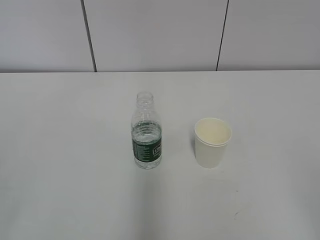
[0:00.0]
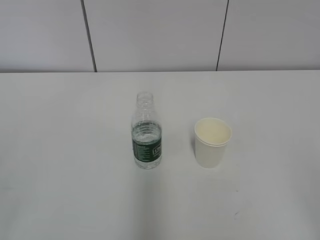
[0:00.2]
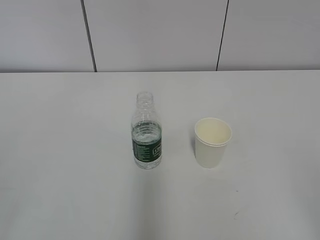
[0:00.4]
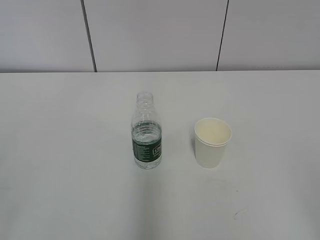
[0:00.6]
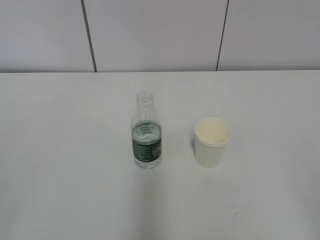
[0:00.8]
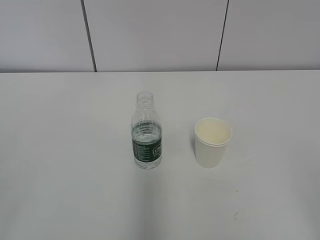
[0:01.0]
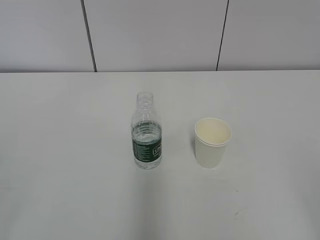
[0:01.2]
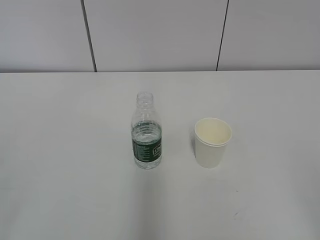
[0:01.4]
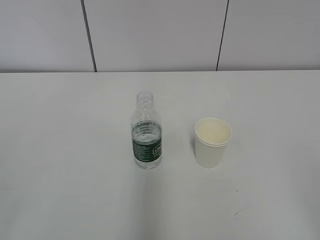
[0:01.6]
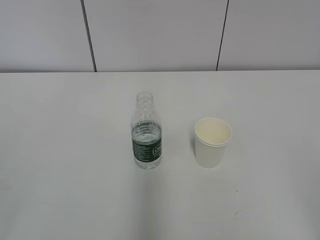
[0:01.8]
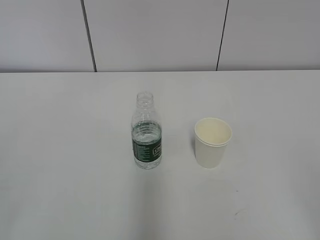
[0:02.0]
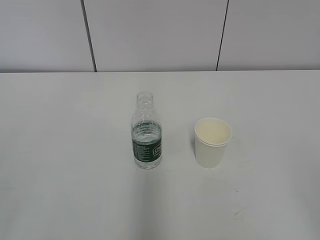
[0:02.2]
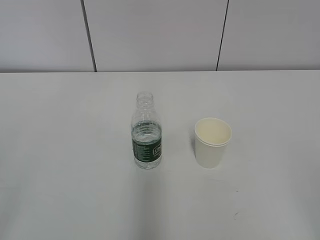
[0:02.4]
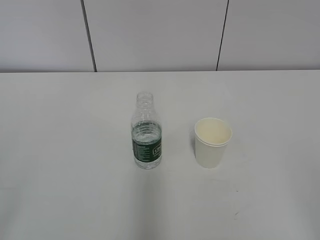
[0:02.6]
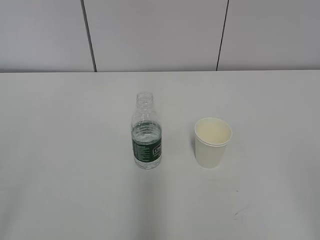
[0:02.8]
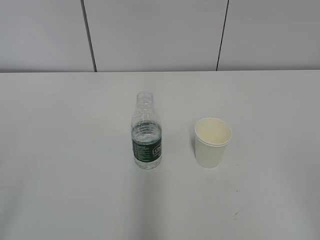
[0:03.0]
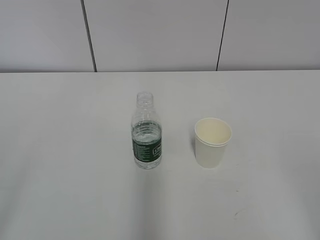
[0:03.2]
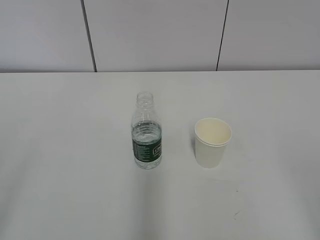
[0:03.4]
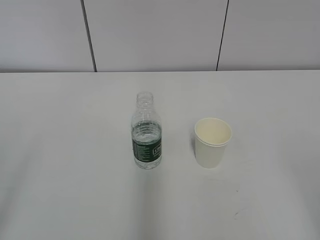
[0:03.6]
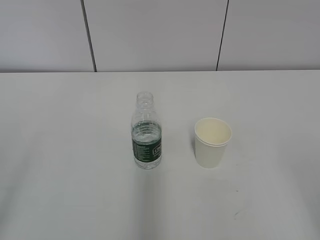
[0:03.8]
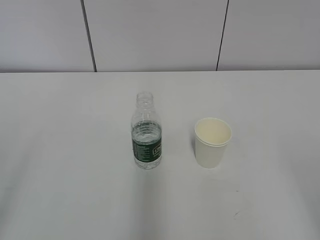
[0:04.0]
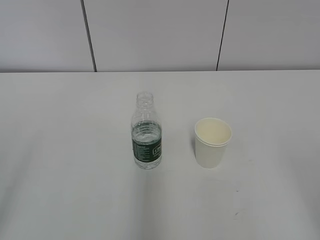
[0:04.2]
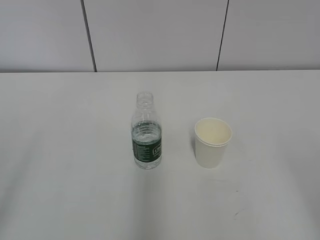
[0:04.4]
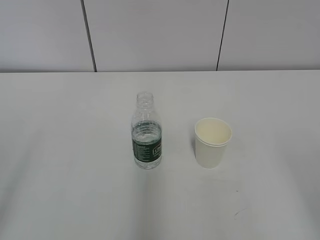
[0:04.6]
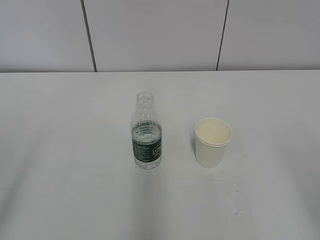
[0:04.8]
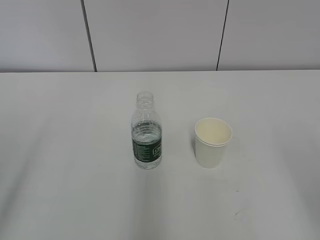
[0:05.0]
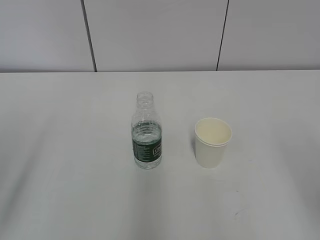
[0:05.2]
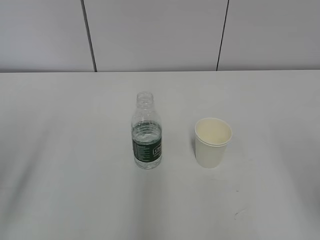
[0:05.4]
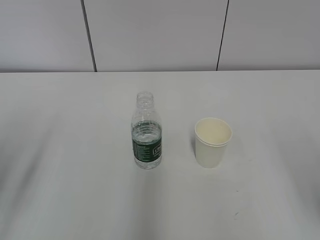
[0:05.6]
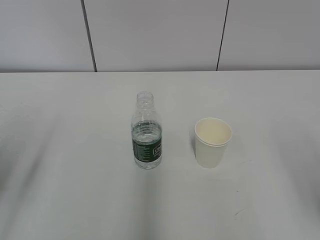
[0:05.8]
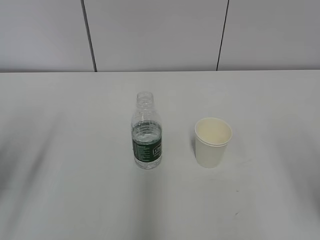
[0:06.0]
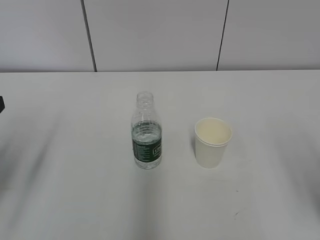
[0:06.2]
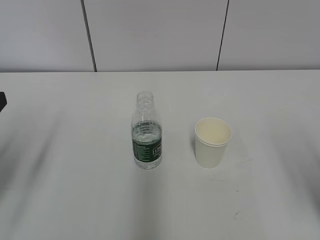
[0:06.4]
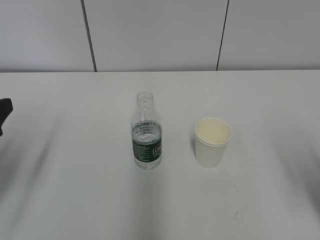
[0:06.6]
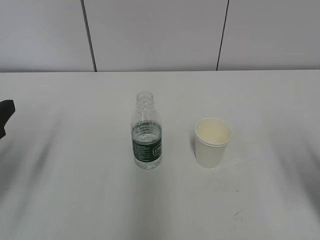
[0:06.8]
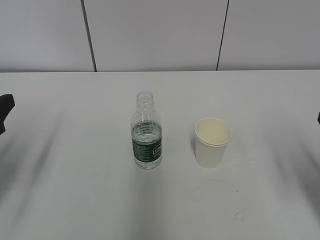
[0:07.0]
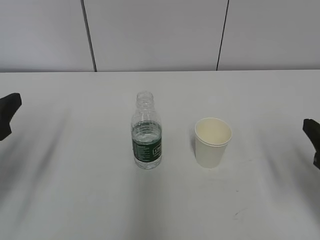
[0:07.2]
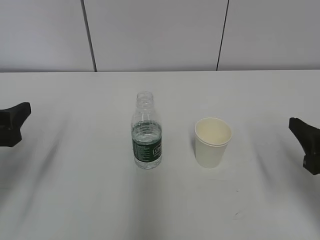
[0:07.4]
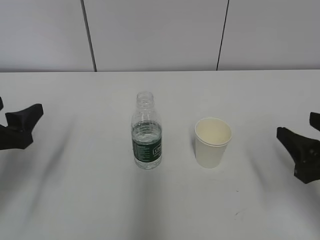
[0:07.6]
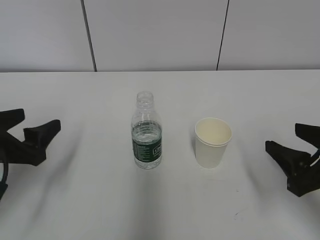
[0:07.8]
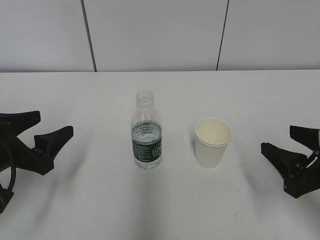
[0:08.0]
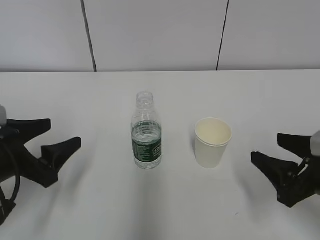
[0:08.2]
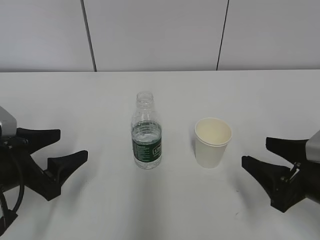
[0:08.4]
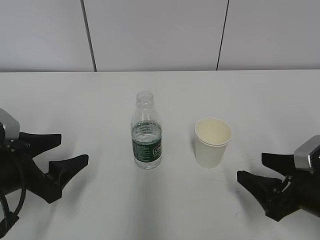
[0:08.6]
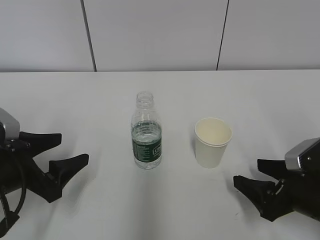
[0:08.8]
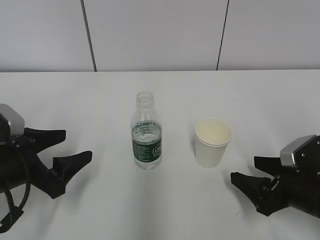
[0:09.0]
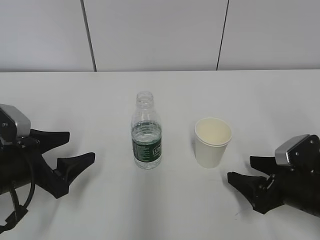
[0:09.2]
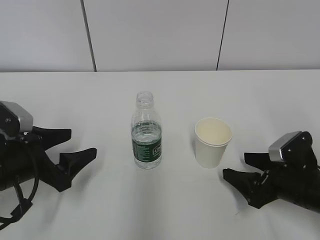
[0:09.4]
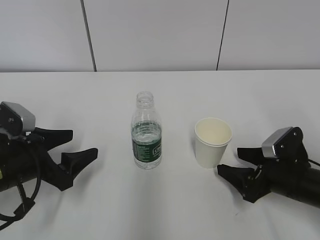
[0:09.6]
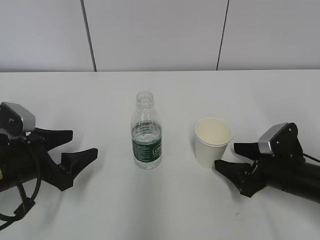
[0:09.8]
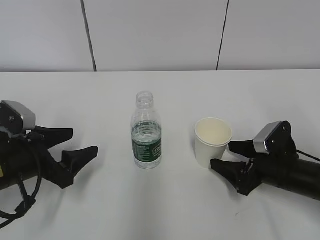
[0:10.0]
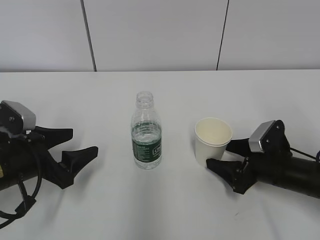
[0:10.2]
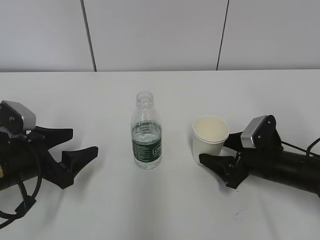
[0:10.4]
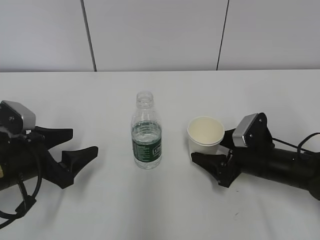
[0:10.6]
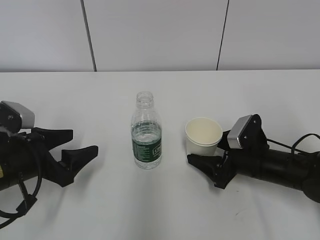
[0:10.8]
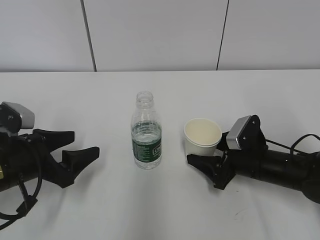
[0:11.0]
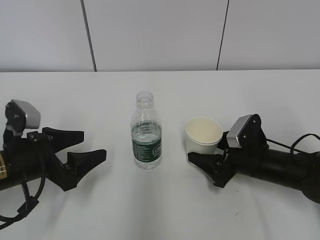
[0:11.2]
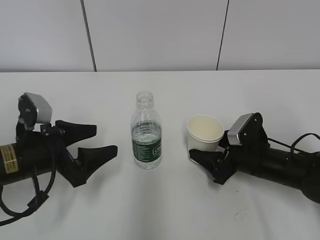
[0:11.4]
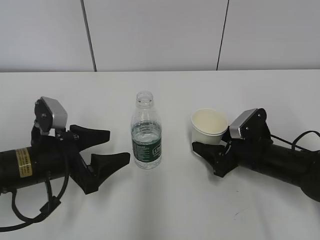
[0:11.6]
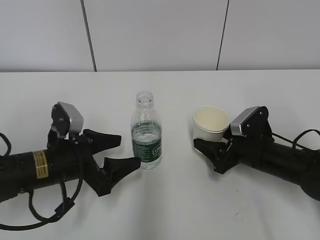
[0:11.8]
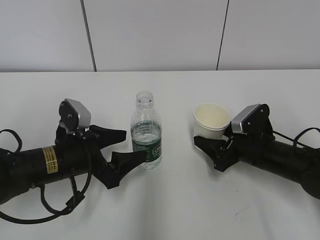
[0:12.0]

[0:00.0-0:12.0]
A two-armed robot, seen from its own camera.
Step, 0:00.0 to 0:09.4: Grab the paper cup with the right hand.
0:04.4 to 0:06.0: The left gripper moves forward, about 15 cm.
0:06.0 to 0:07.6: The left gripper is displaced downward by approximately 5 cm. The right gripper shifts approximately 10 cm forward and downward.
0:07.6 to 0:09.0: The left gripper travels downward by approximately 5 cm. Meanwhile the right gripper goes roughly 10 cm downward, and opens up.
0:09.0 to 0:10.4: The right gripper heads forward, covering some 10 cm.
0:10.4 to 0:12.0: The right gripper closes up; the left gripper moves to the right, roughly 5 cm.

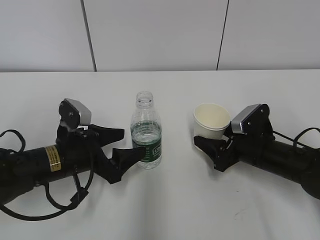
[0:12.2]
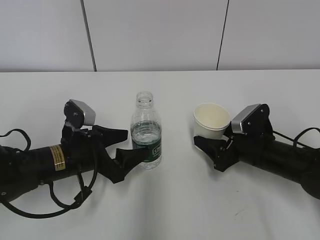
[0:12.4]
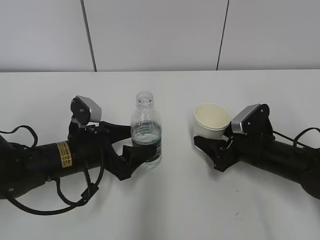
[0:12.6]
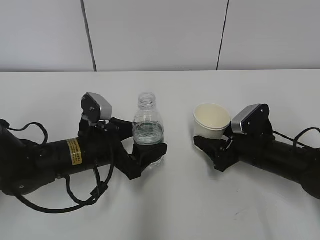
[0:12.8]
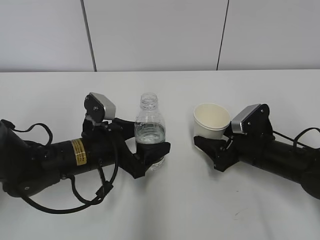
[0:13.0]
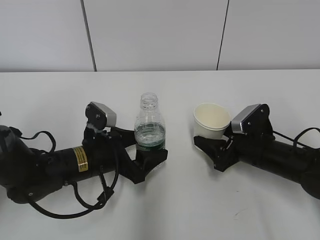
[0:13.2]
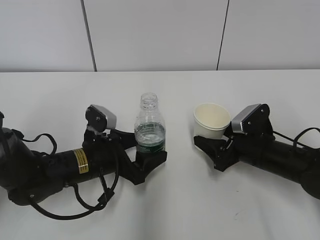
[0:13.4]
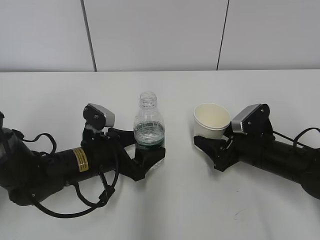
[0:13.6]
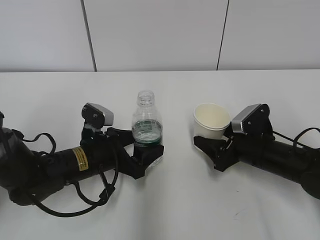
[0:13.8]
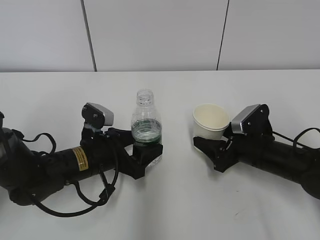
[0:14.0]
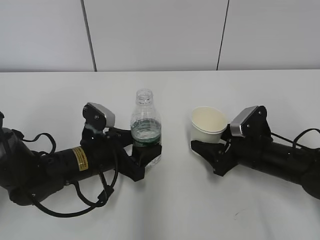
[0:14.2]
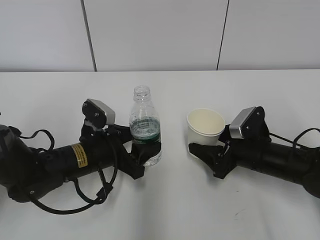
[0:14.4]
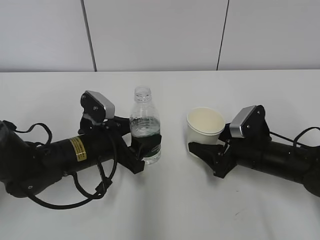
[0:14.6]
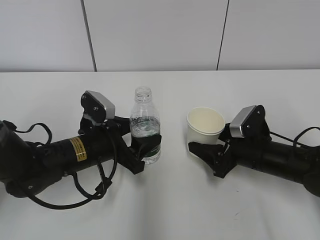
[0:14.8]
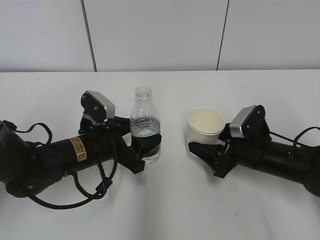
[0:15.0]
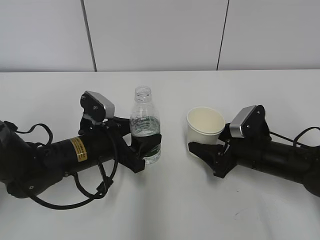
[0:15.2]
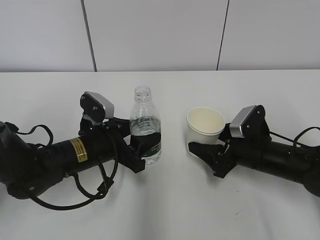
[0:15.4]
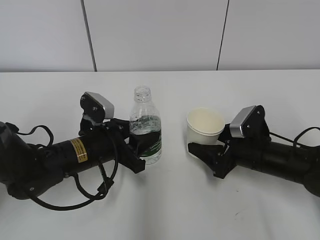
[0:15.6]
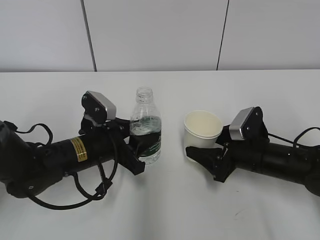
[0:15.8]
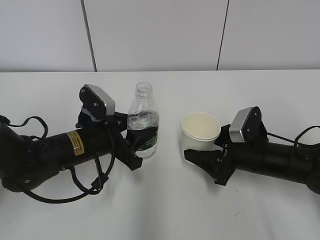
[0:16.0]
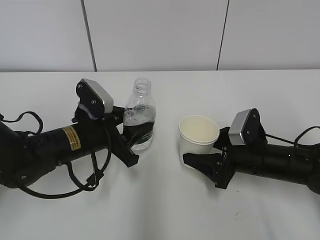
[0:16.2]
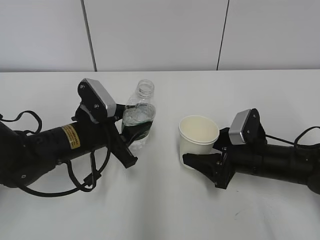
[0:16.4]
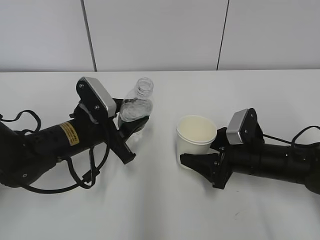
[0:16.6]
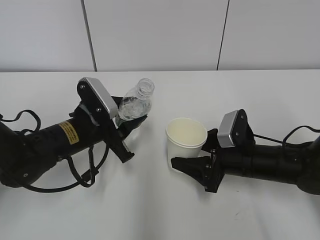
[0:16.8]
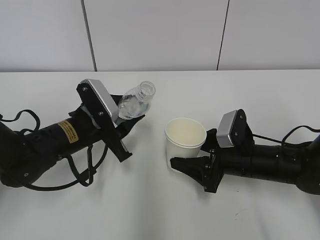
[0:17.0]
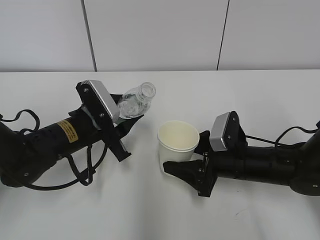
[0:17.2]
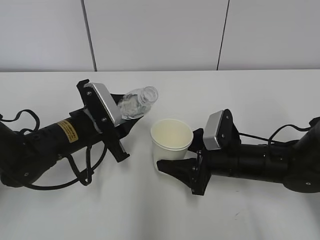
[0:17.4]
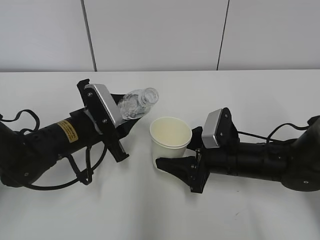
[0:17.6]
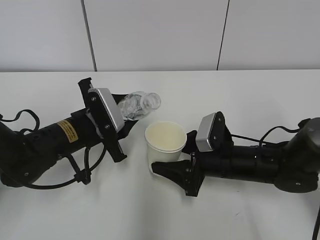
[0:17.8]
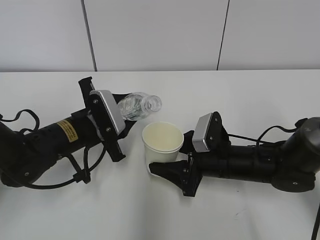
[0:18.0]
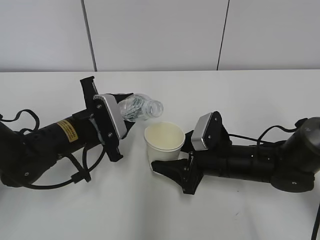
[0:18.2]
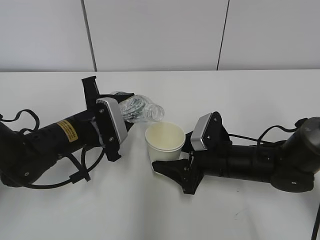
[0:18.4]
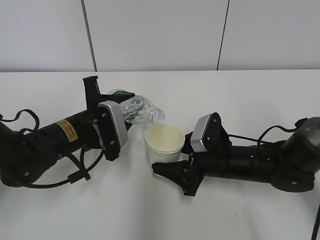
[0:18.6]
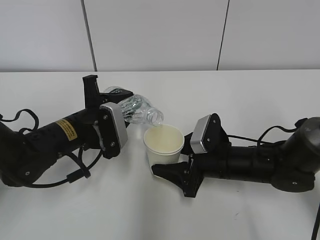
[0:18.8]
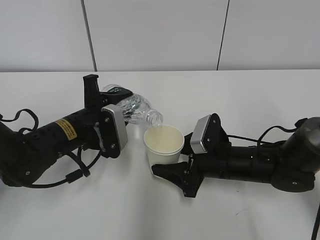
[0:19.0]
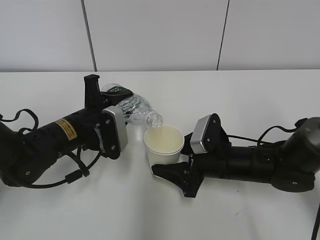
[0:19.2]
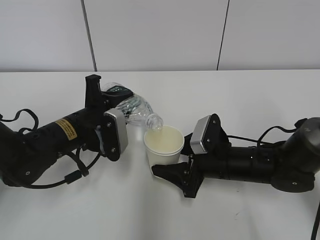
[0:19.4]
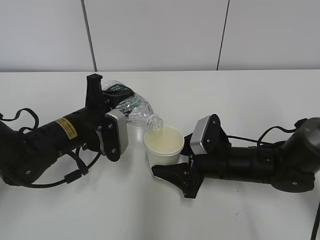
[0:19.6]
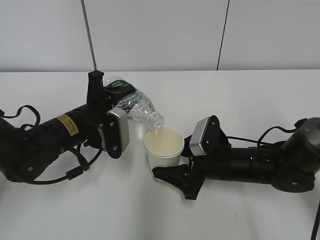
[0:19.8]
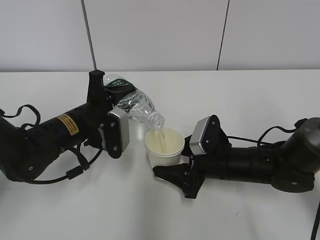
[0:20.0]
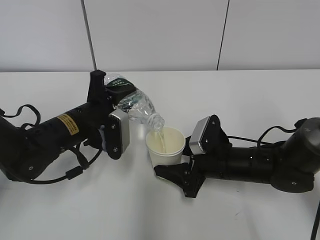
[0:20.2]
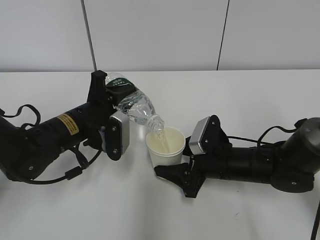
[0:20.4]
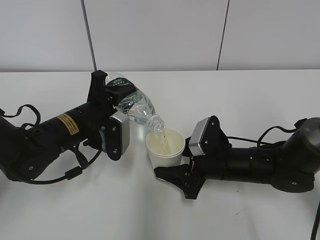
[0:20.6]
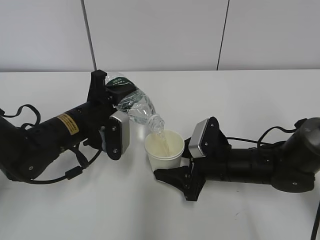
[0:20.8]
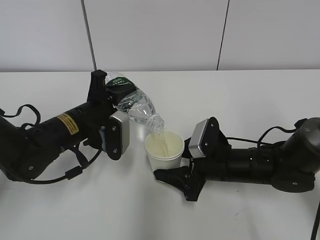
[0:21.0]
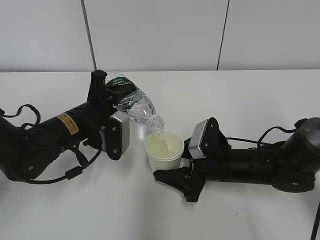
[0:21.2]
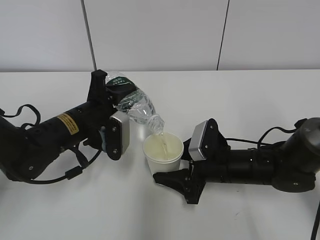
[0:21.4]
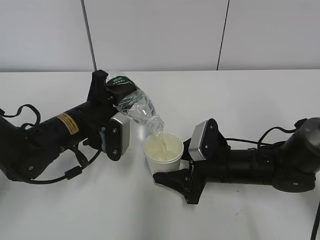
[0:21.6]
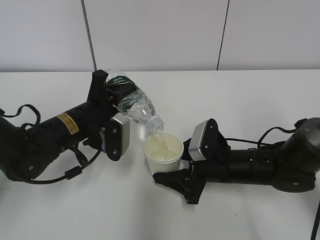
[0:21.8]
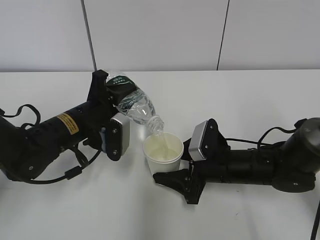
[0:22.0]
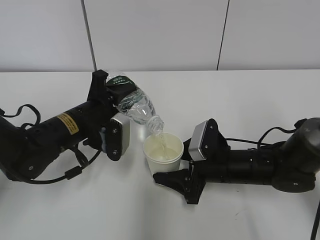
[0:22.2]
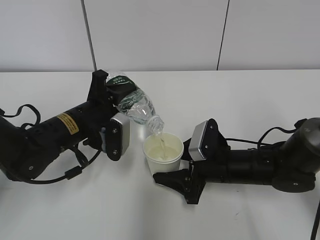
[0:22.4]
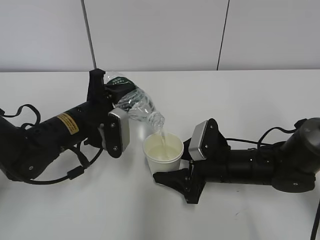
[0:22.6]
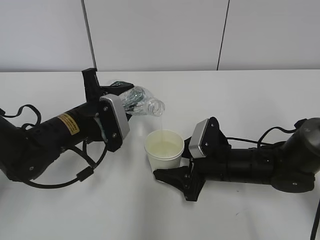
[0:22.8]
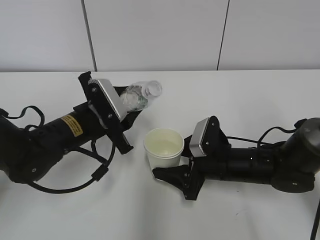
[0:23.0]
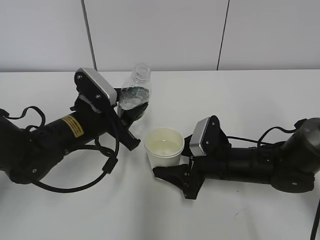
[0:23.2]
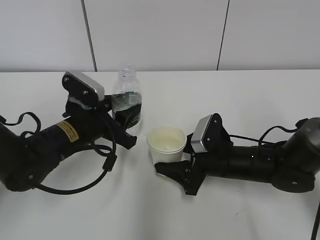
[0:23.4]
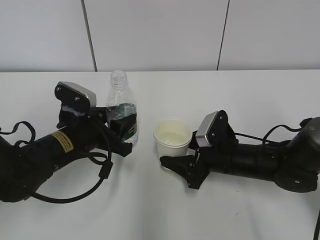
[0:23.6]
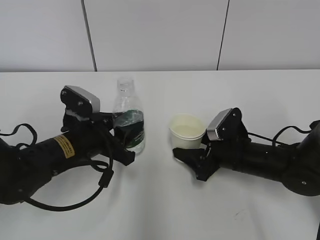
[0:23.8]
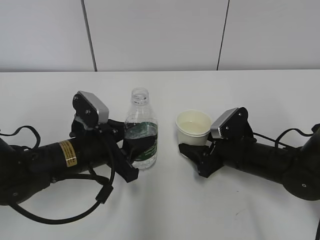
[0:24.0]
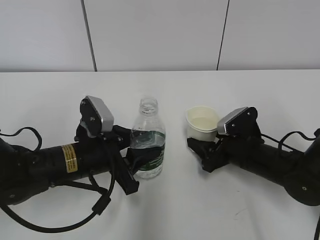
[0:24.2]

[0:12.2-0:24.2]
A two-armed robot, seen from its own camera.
Step, 0:13.4 to 0:16.4: Lift the paper cup with the right hand.
Step, 0:16.6 to 0:19.0: Fill water with the right hand.
Step, 0:19.6 to 0:20.6: Place the paper cup with the right hand.
0:12.2 to 0:15.2: There are only small adjustments of the grippers.
0:16.6 to 0:18.2: The right gripper heads to the left, covering roughly 5 cm.
0:19.8 to 0:21.2: The grippers make only small movements.
0:21.2 to 0:22.6: Neither gripper changes place.
0:22.6 to 0:24.2: The right gripper moves to the right, roughly 5 cm. Meanwhile the left gripper moves backward, some 5 cm.
